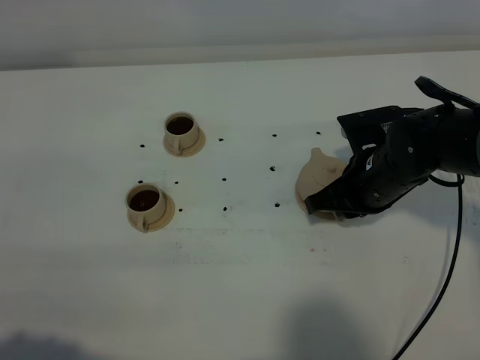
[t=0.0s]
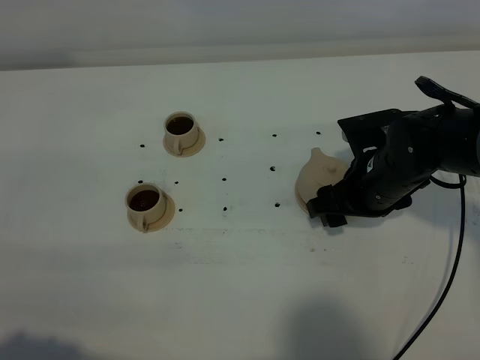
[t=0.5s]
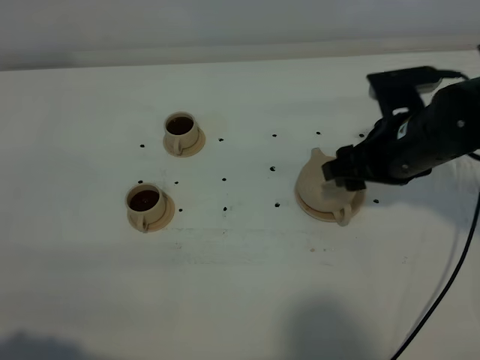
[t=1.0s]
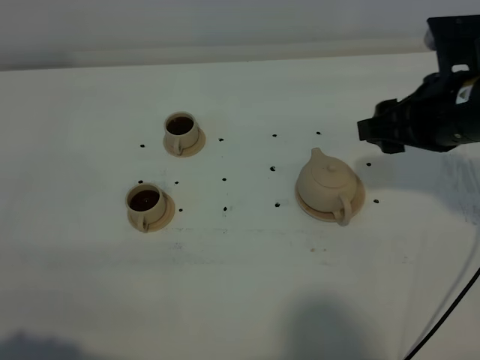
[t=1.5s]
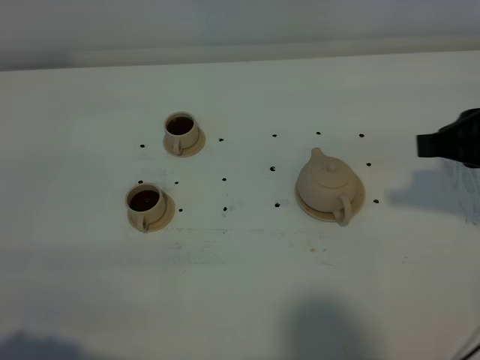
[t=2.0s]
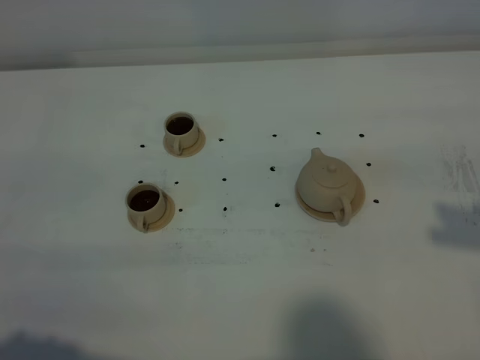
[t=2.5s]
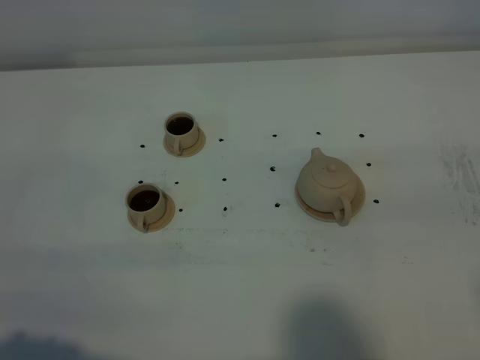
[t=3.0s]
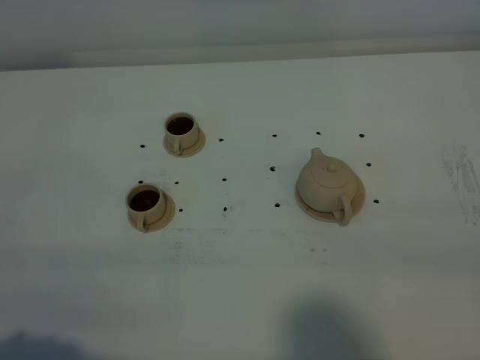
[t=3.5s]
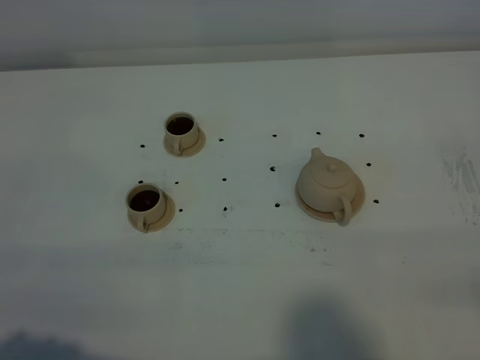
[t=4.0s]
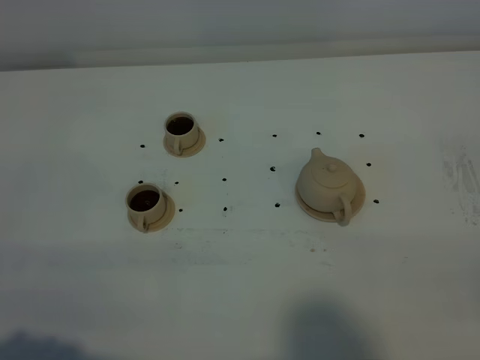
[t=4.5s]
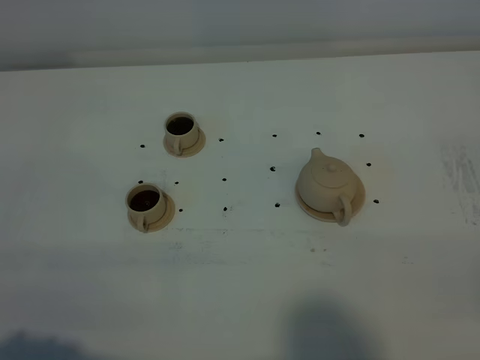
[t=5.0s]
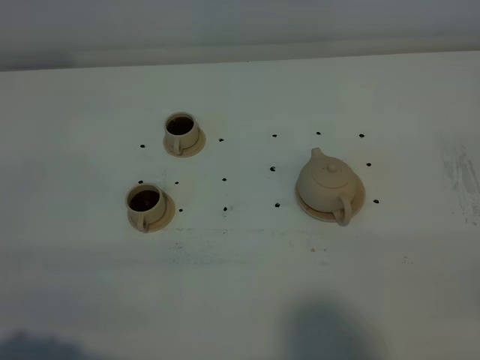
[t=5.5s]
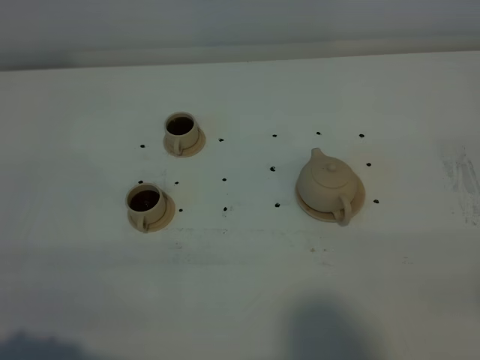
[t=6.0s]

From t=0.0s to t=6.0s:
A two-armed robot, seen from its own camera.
Task of the whole recording: grasp the brown teapot and pour the tea into the two brown teacups one by one, put the brown teapot back in its original place.
From t=0.0s to t=2.0s: The right gripper moves upward, to the right and backward, roughly 20 cm, and opens and closes again.
From t=2.0s to t=4.0s: The right gripper is displaced backward by about 25 cm, and opens.

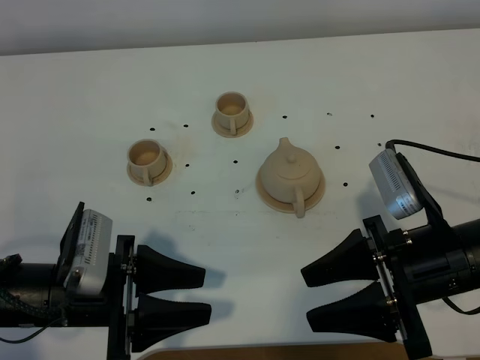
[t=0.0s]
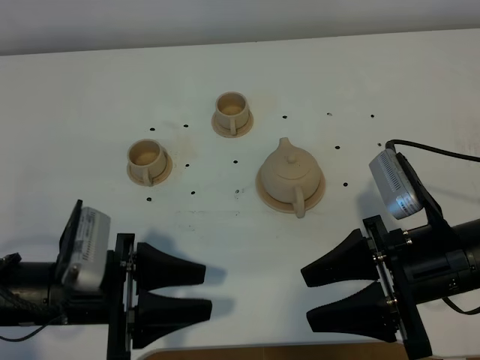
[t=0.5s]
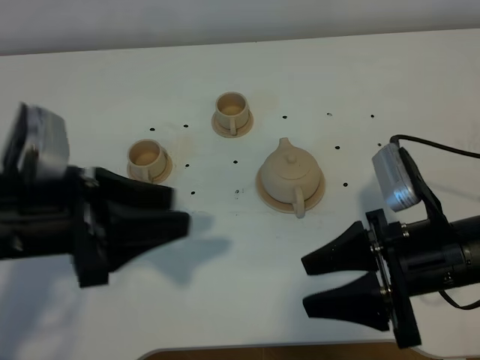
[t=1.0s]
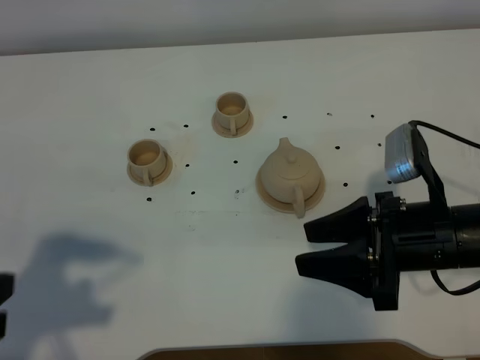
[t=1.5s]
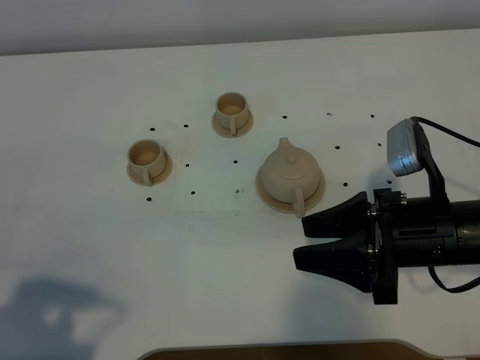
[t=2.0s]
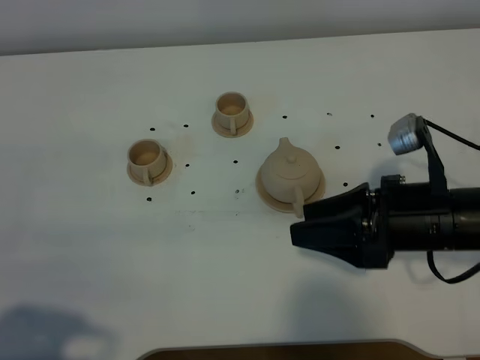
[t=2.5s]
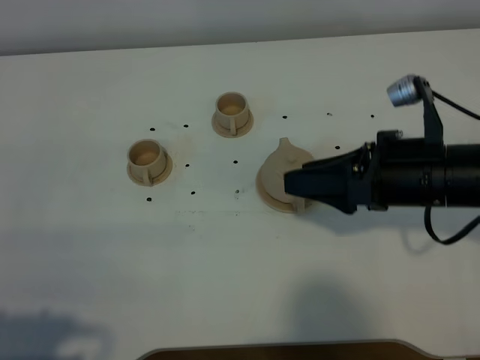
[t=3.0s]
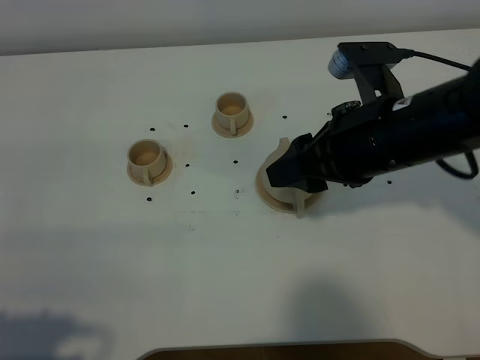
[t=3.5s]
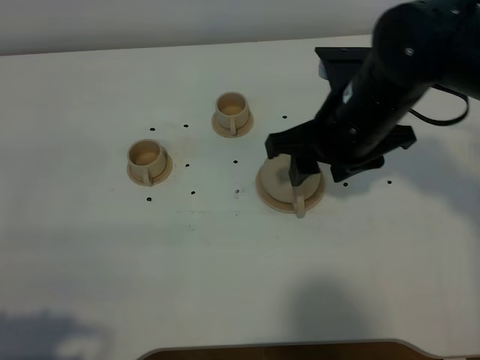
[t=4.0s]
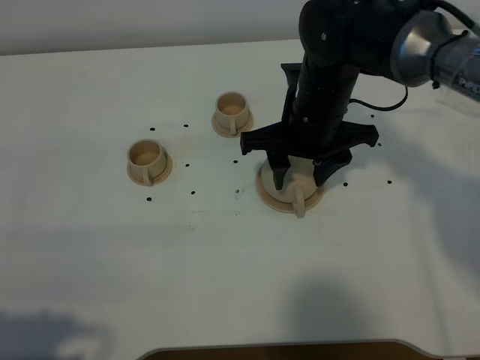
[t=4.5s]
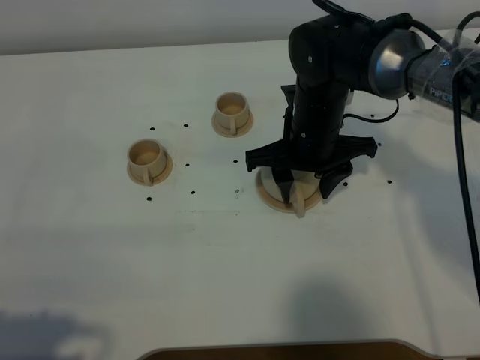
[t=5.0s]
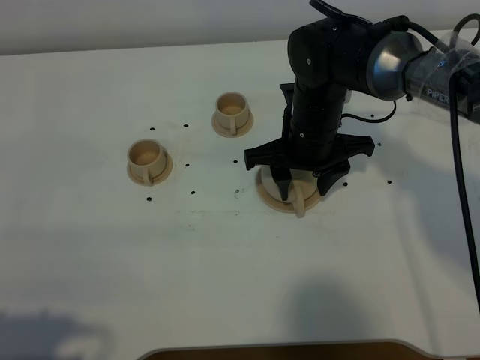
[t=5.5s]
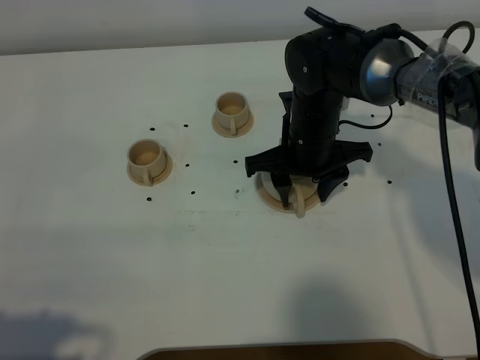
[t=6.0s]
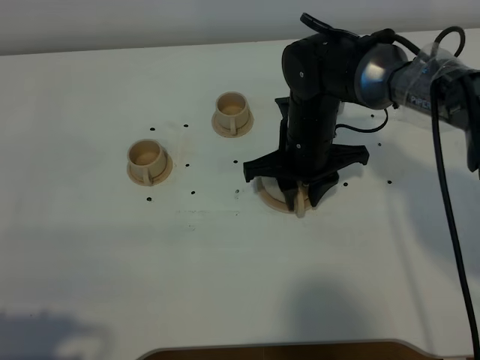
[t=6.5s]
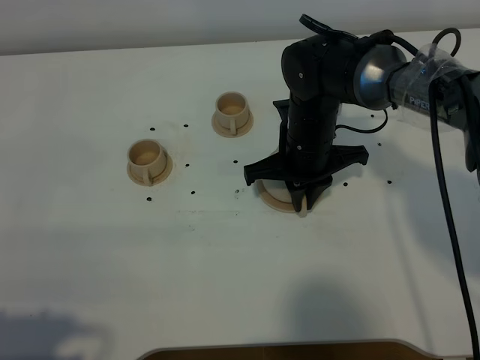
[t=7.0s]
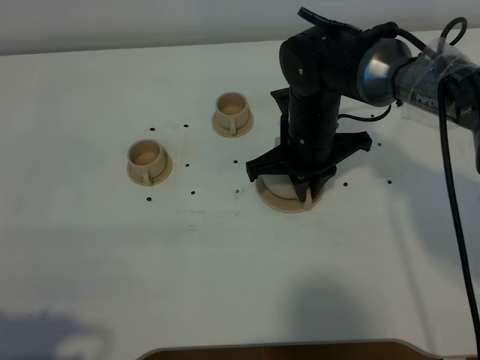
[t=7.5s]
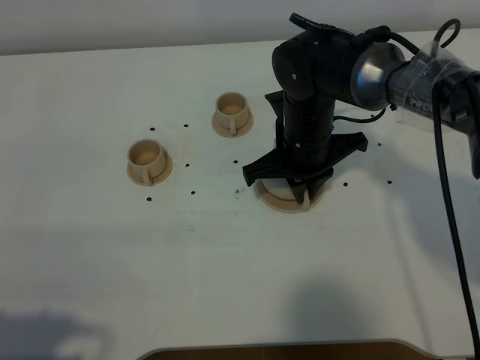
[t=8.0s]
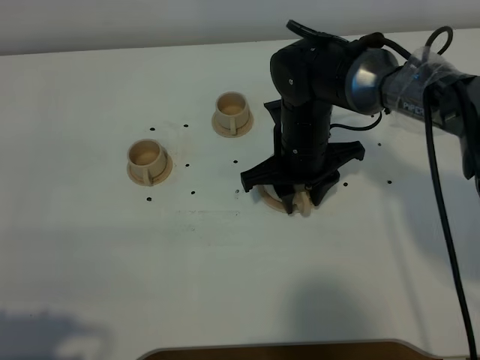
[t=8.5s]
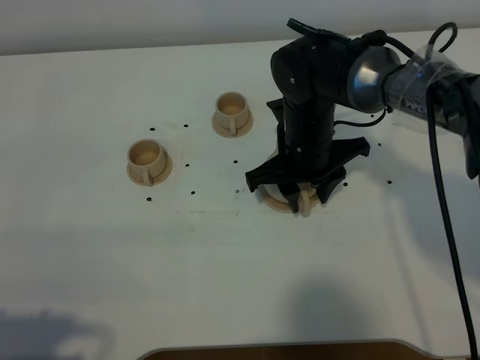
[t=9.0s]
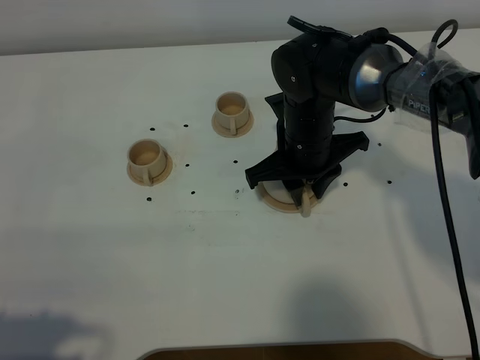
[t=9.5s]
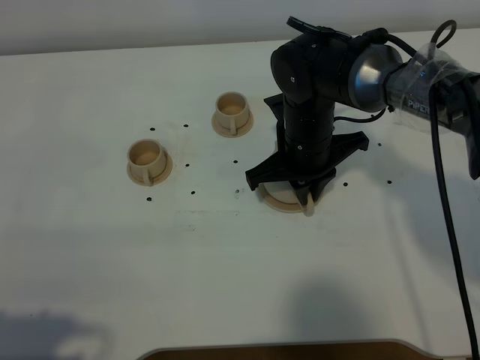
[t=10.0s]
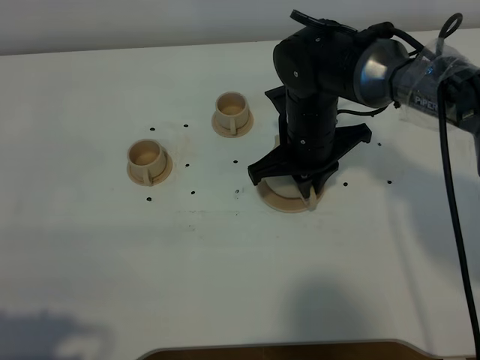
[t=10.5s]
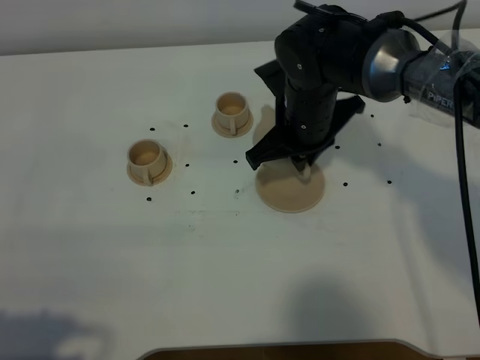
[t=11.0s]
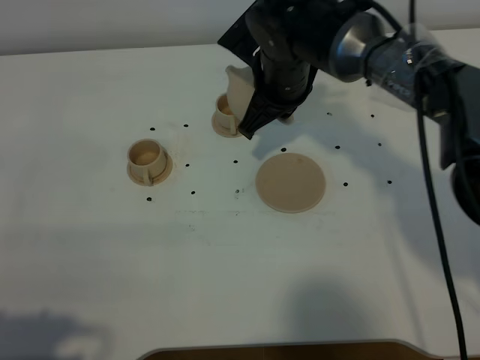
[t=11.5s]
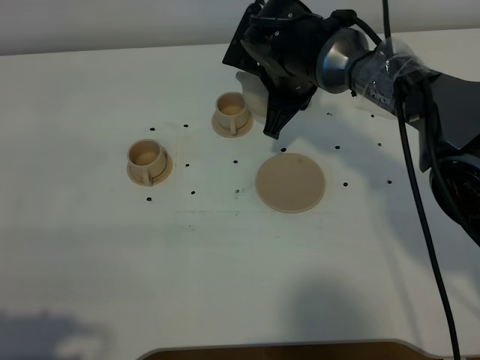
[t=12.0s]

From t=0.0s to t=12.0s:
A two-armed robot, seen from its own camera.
Task of the whole recording: grasp the brown teapot and pour the tea into the two brown teacups one by one, put the brown teapot back in its original place.
Step, from t=0.0s to t=10.5s: Pick up the teapot with the right gripper.
From t=0.0s to t=2.0s: The left gripper goes some 20 cm upward, backward and to the left.
From t=2.0s to t=4.0s: The right gripper moves forward, to the left and upward, approximately 15 cm.
From t=4.0s to t=6.0s: The right gripper is displaced downward and forward by some 10 cm.
From t=6.0s to t=8.0s: The right gripper closes up.
From t=8.0s to t=10.0s: The right gripper opens, then closes again.
From t=10.0s to t=12.0s: The right gripper travels forward by about 10 cm.

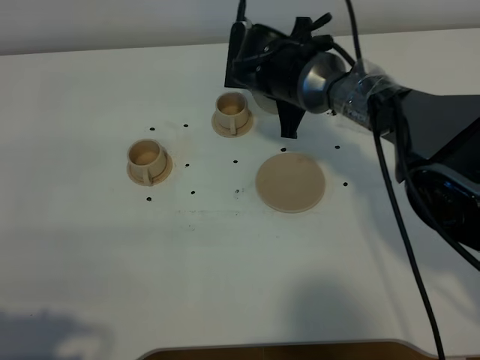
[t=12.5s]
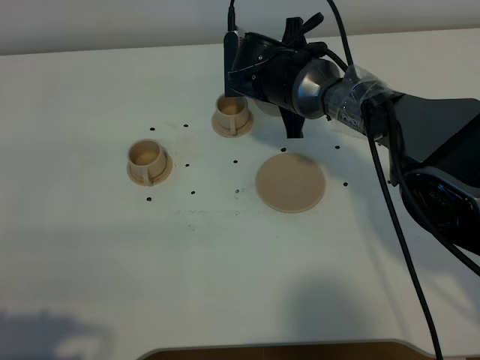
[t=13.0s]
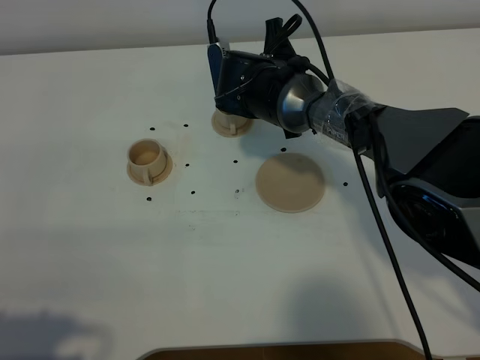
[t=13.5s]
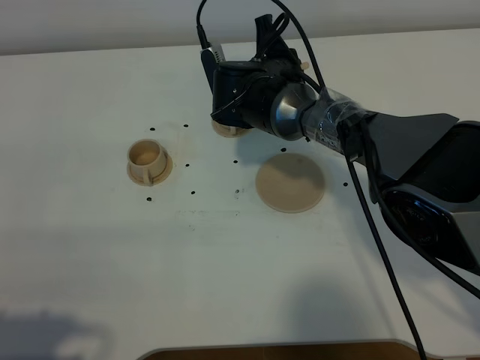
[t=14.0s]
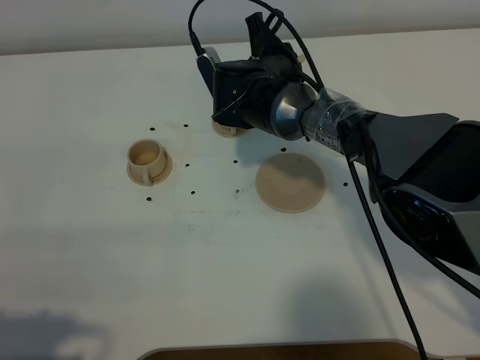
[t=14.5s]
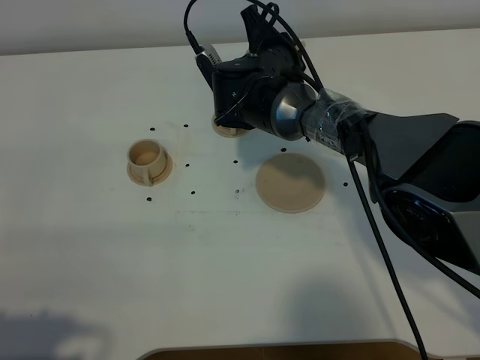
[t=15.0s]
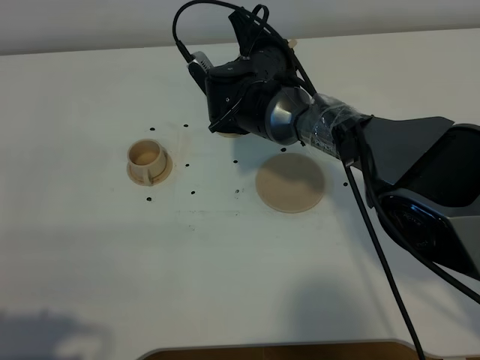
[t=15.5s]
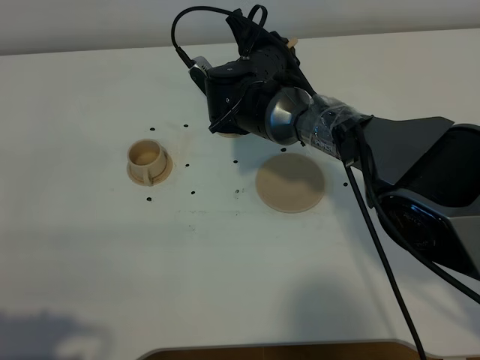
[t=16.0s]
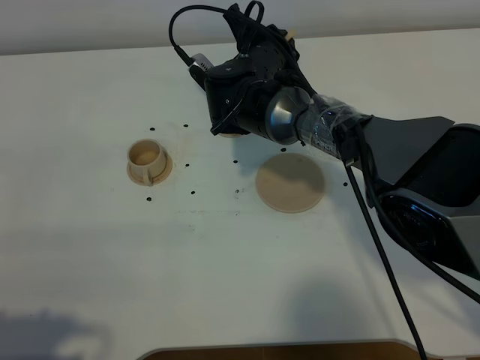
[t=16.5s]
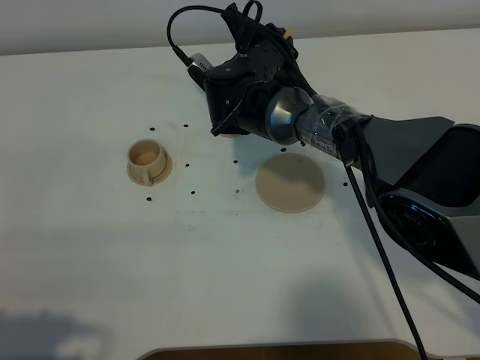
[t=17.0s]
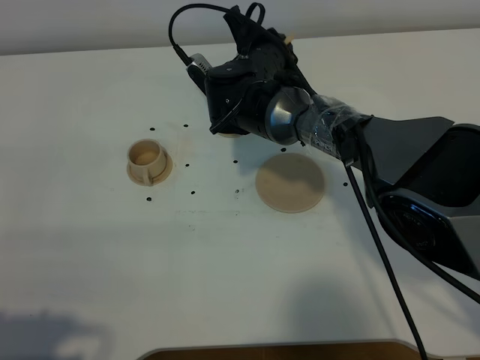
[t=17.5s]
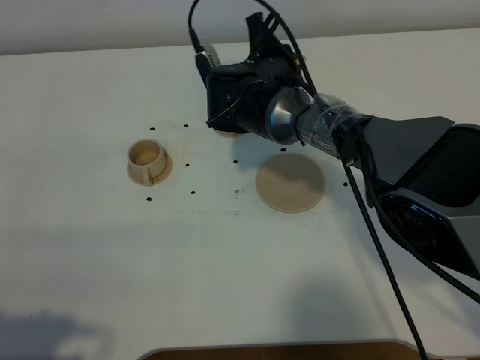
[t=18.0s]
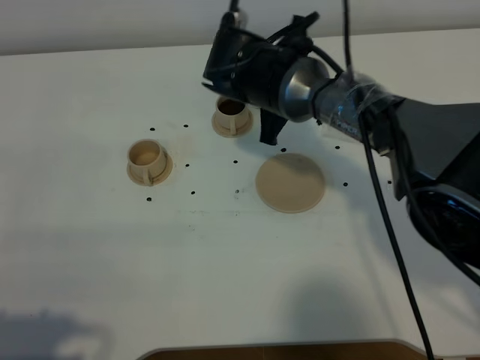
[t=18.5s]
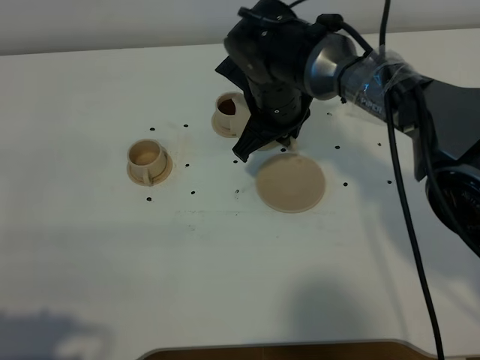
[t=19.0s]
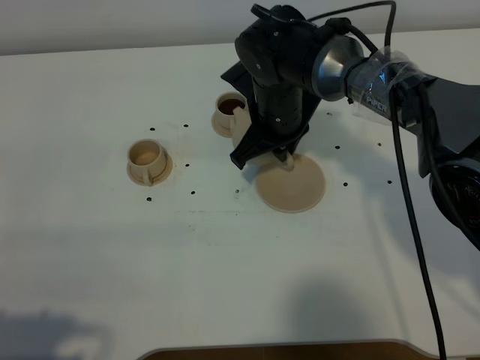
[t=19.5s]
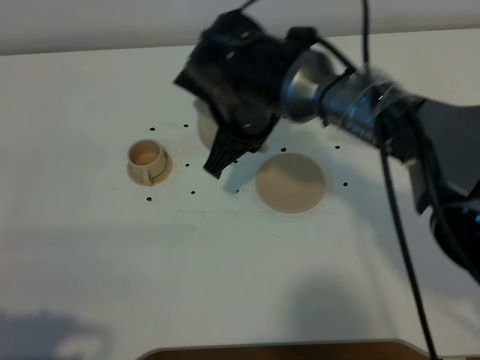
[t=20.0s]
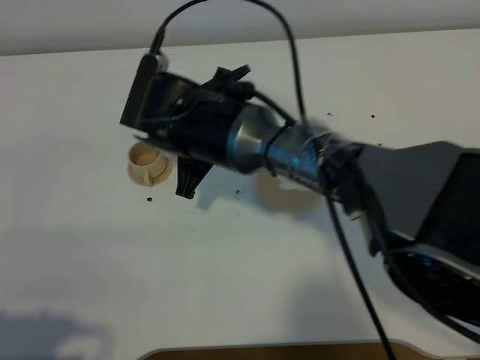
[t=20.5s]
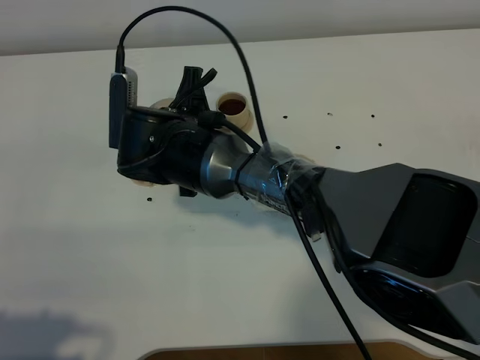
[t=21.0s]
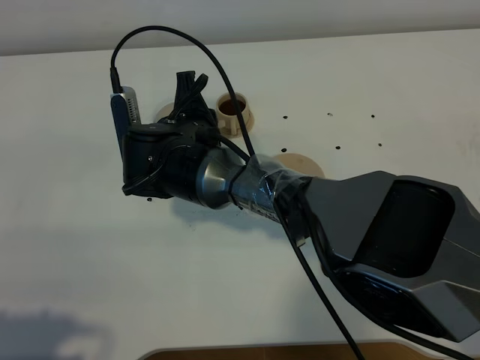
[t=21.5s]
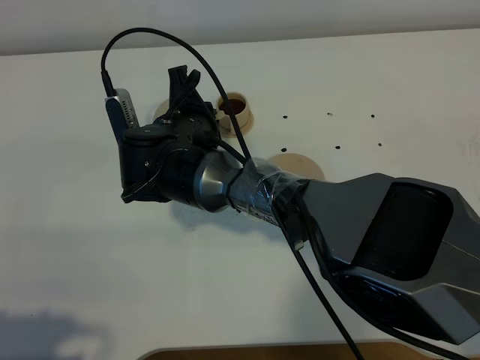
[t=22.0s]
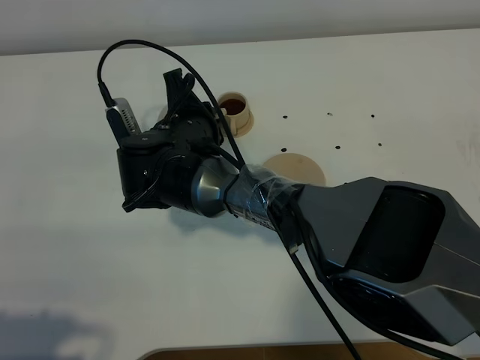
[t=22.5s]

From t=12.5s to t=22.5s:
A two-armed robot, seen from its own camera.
Task of the whole recording: grasp the brown teapot and pour the tea into the two brown teacups one by one, put the brown teapot back in its original place.
Step, from t=12.5s to t=18.0s: Pour tea into the teacup with the right gripper.
From t=14.5s to t=16.5s: The grippers move only a little.
From t=18.5s to t=20.5s: The right gripper travels to the left and backward by roughly 10 cm.
